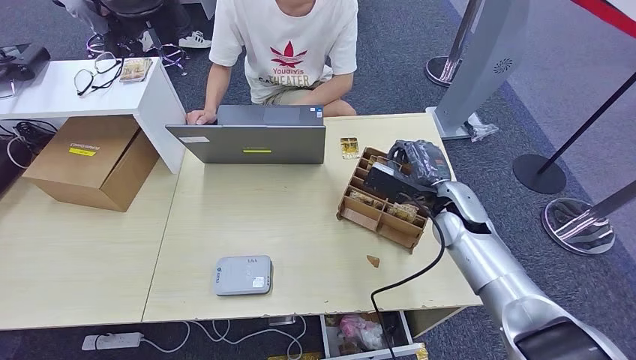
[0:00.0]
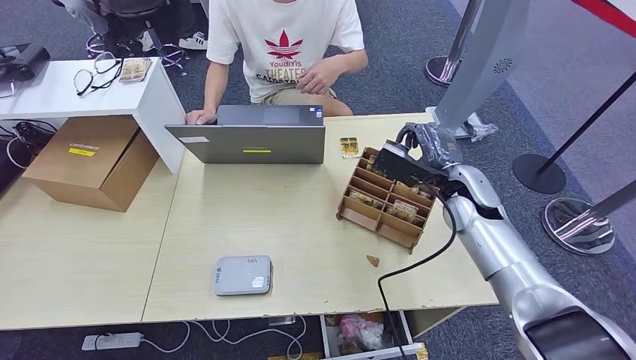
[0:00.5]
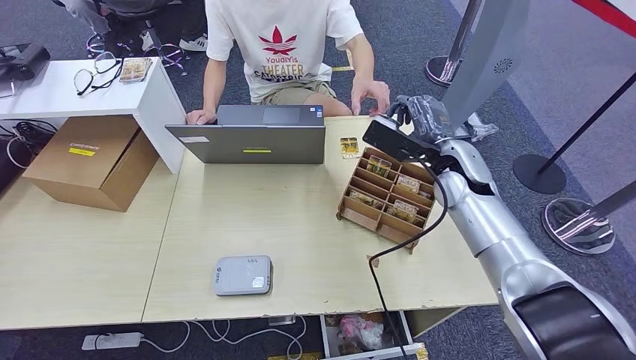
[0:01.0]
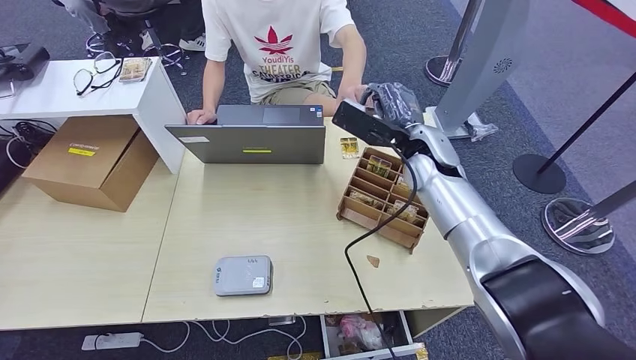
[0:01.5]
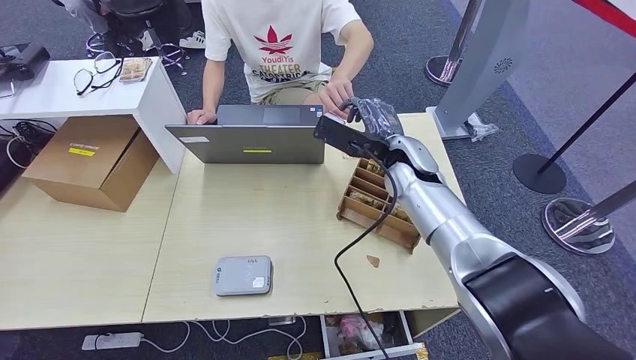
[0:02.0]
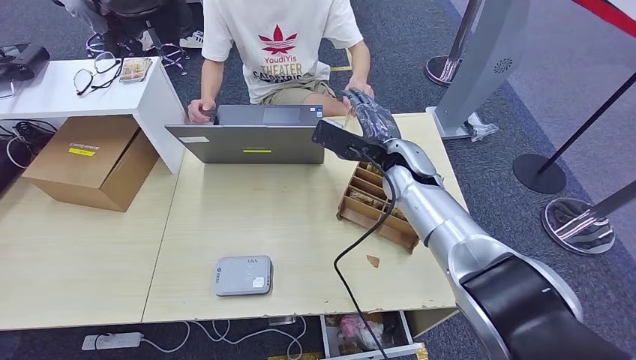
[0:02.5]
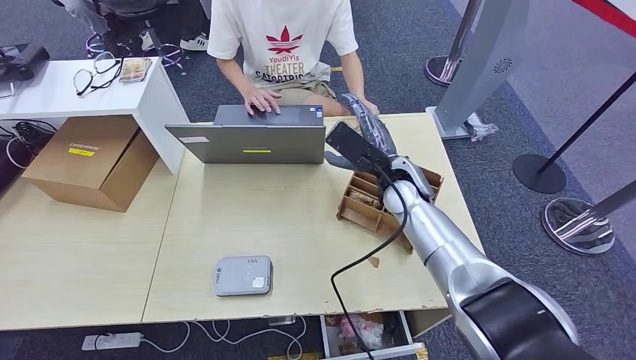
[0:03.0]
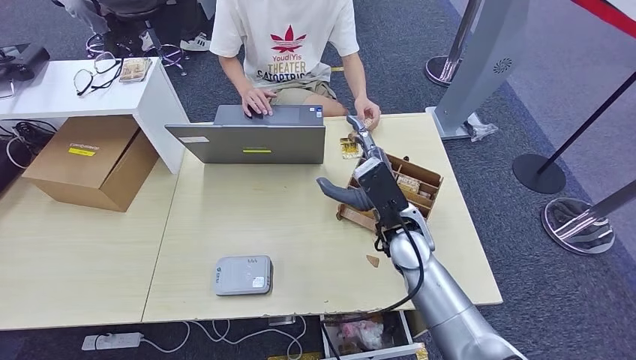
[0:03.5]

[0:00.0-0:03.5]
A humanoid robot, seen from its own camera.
Step, 0:01.0 to 0:03.5: Hand the room key to the person.
0:00.0 to 0:02.0: The right hand goes some 15 cm to the left, forward and upward.
0:02.0 to 0:03.5: The right hand shifts some 10 cm backward and downward.
